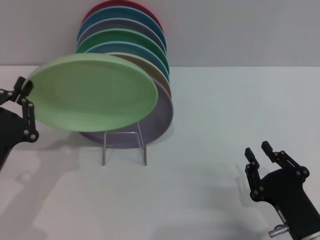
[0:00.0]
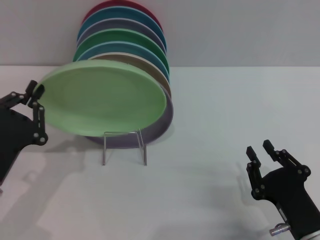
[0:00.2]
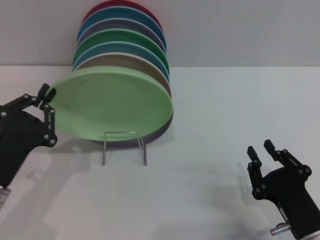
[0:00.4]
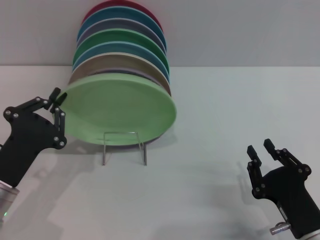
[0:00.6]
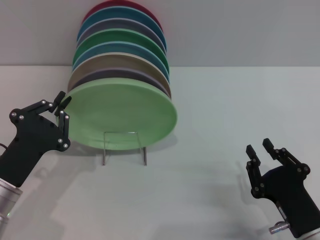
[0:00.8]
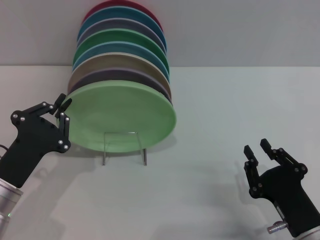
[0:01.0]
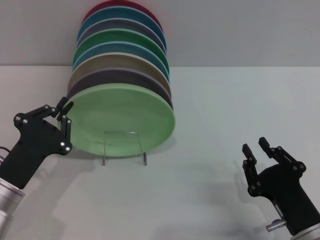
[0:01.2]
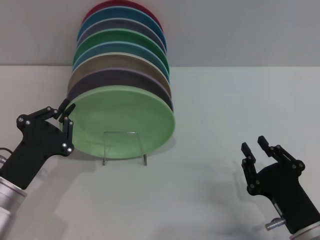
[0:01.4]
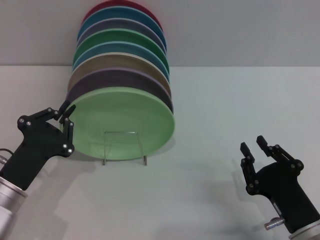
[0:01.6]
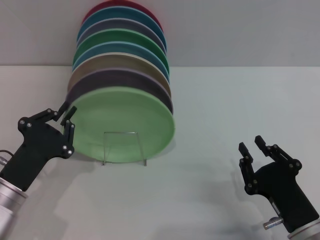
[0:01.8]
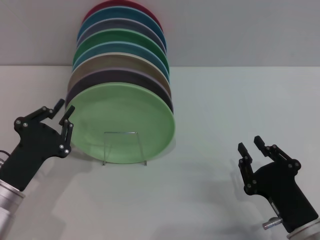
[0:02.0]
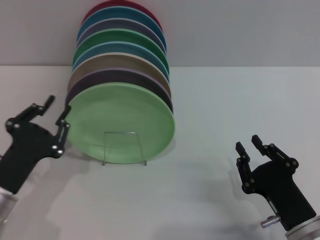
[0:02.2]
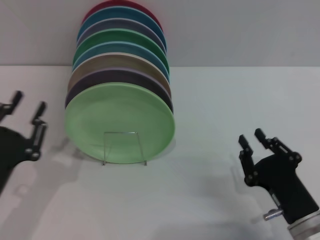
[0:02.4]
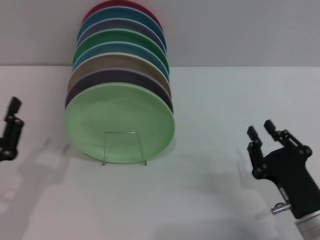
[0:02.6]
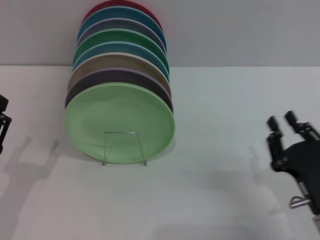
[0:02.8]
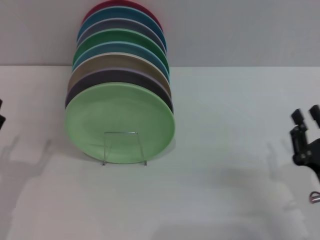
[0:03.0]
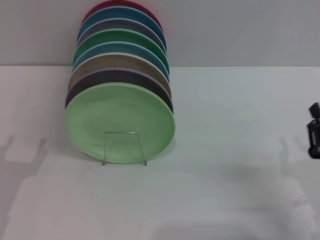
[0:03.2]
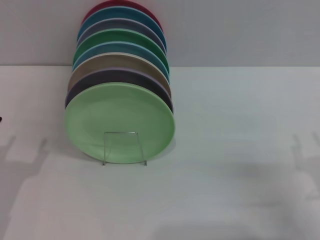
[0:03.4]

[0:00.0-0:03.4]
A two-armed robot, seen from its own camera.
Task of the whole recording: Grip the plate with one hand, pass it to the other, then set it on the shelf.
Step, 0:00.0 to 0:02.2: Place the plate on the shelf with the left gripper.
0:01.6 to 0:03.4: The right gripper travels to the right by about 10 cm, while the left gripper travels to the left by roughly 5 cm, and opens its fingers.
